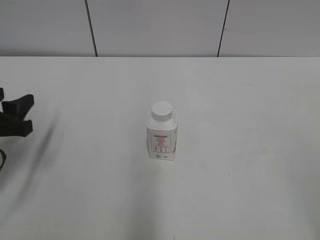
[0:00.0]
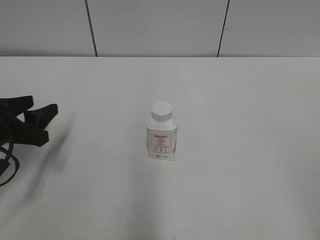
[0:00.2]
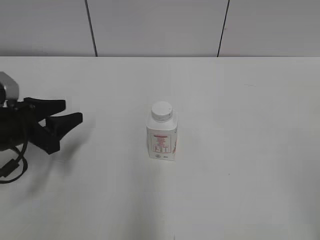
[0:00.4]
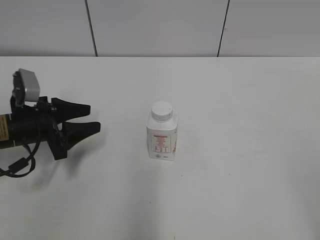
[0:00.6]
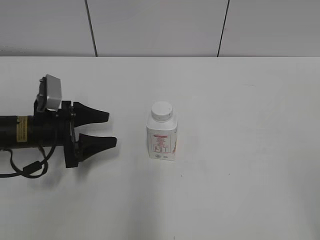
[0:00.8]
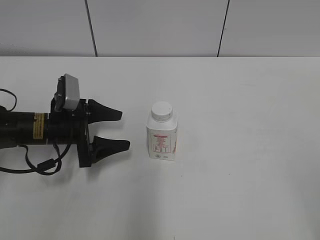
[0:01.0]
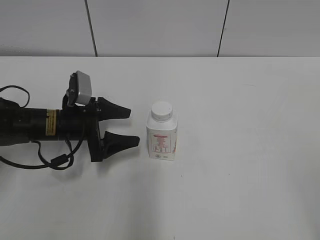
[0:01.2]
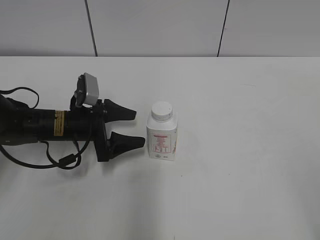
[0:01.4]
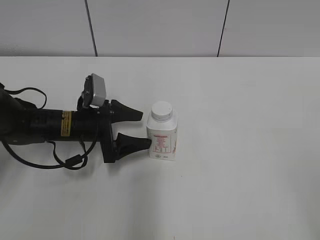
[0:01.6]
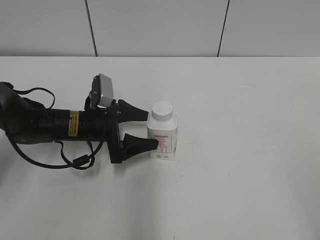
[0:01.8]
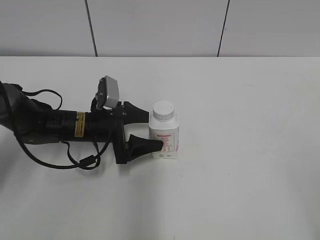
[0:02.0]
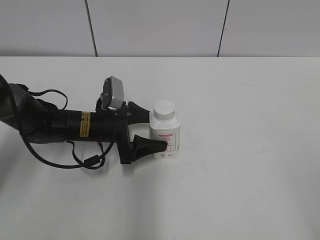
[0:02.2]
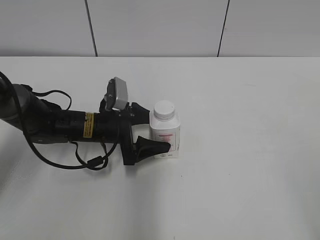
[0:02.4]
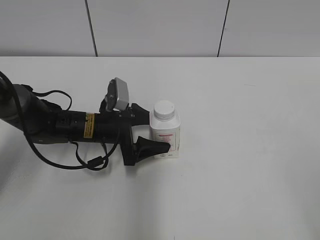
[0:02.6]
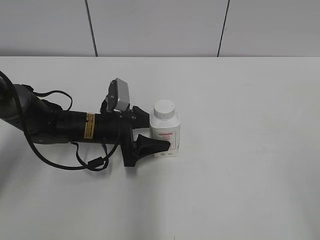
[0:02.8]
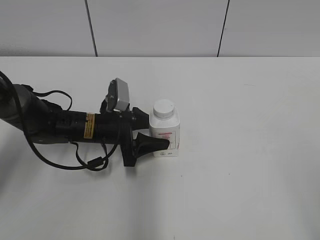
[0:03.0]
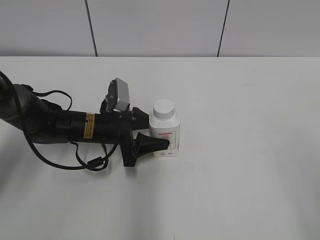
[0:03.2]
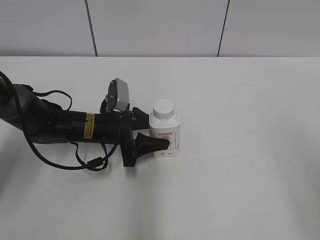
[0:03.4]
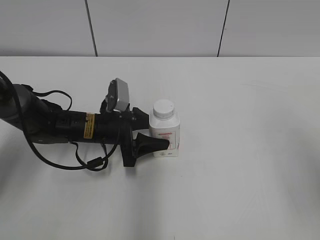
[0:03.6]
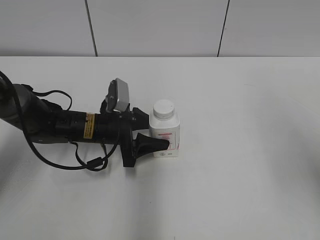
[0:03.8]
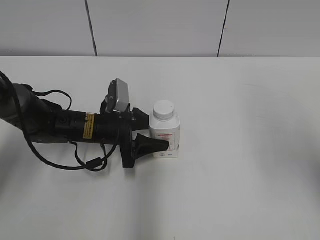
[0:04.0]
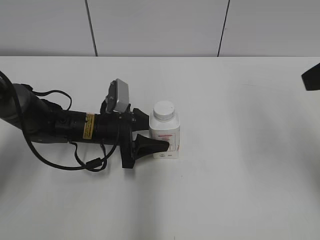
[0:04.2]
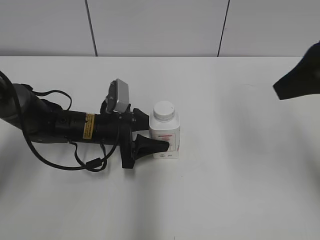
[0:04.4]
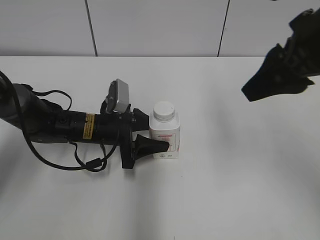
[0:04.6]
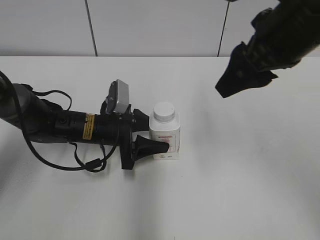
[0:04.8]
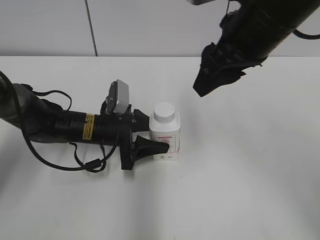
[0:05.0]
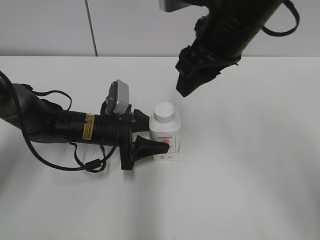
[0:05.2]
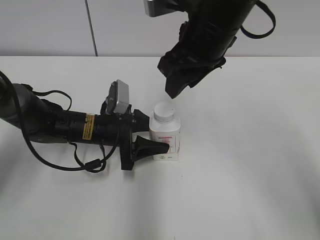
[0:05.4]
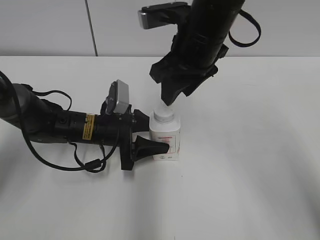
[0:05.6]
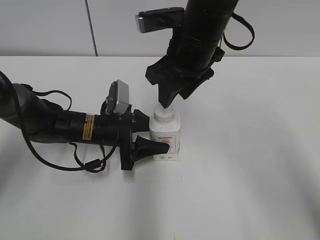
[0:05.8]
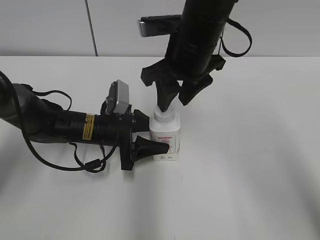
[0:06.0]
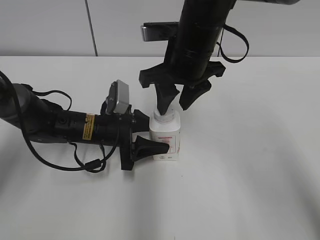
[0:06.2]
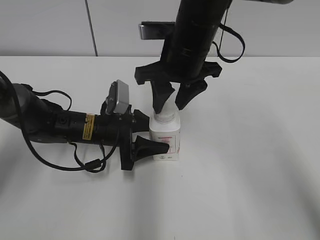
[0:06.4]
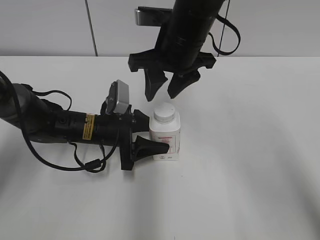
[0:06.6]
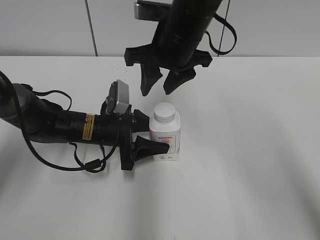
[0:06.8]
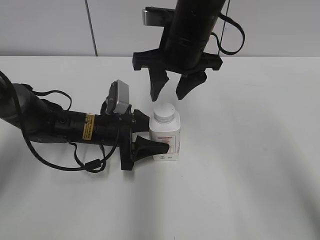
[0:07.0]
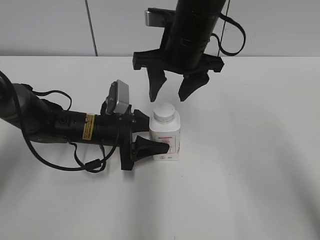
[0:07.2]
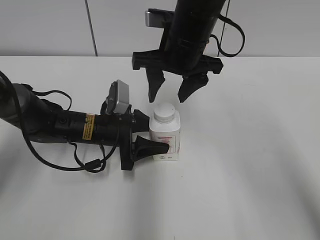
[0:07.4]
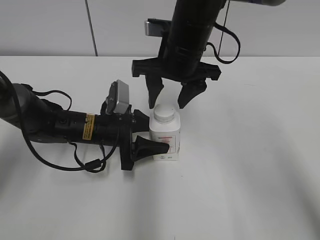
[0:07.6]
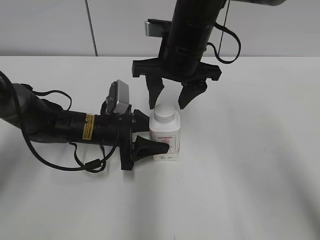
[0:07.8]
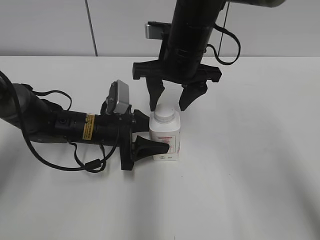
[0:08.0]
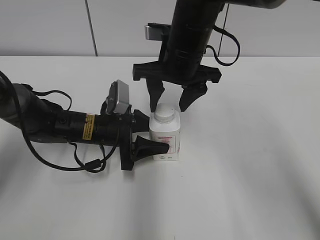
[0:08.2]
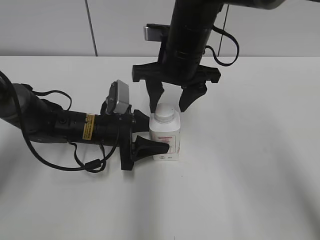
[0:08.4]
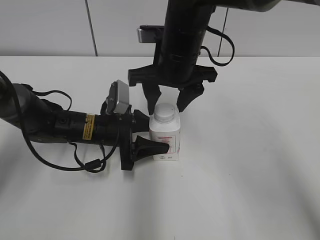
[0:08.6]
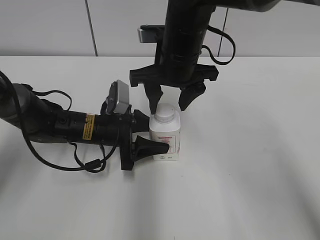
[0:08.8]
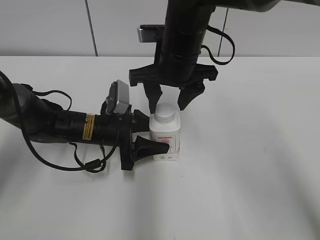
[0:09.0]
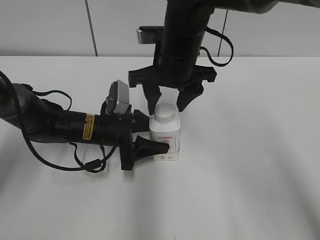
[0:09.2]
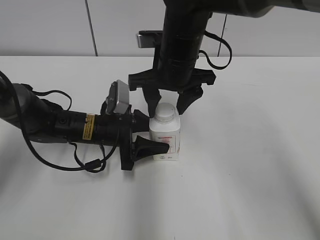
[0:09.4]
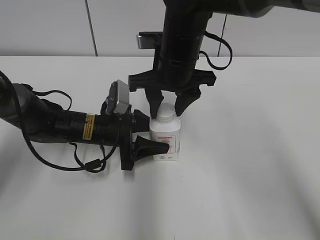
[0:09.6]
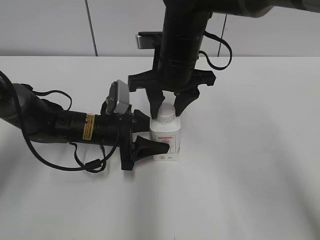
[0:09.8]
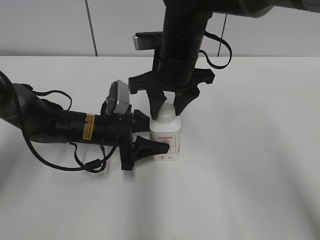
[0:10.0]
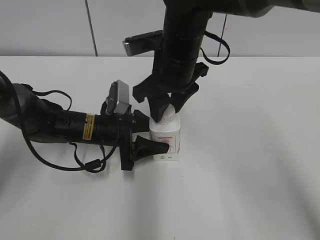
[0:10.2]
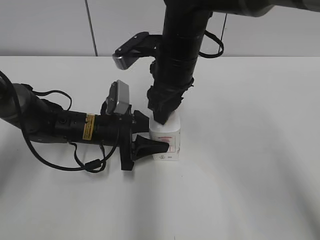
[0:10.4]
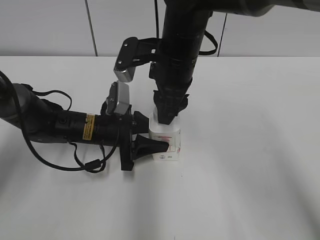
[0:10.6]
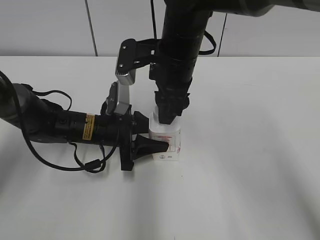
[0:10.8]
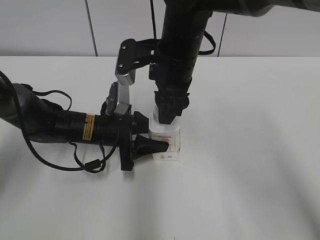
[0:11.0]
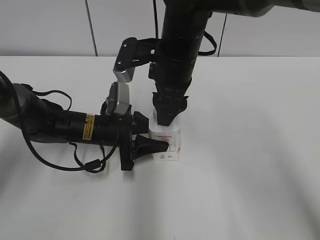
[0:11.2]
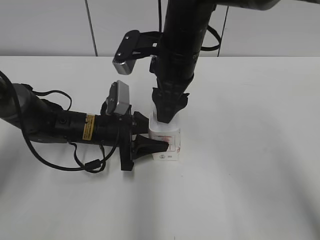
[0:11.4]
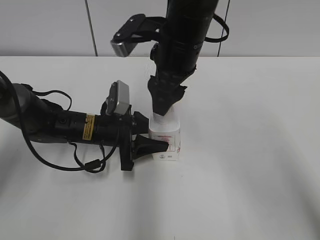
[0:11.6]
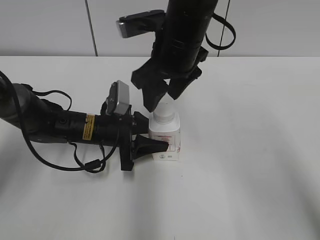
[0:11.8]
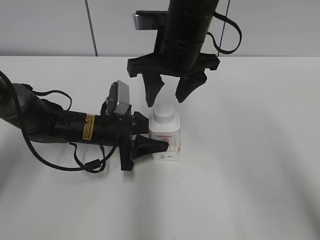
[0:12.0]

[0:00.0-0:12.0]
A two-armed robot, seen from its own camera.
Step, 0:00.0 to 0:04.6: Grasp the bottle and move it to the center of the table with the left gripper.
0:00.0 to 0:01.6: The left gripper is displaced to the right, forward and downward by some 20 cm, and opens up.
0:01.6 to 0:03.0: The left gripper closes.
0:03.0 to 0:04.4: The right gripper goes some 25 cm forward, and closes.
0:04.4 to 0:06.0: The right gripper goes about 20 cm to the left, forward and downward.
0:06.0 to 0:07.6: The right gripper opens its fingers.
0:07.6 to 0:09.0: The grippers stay close to where they were, moving slightly.
0:09.0 to 0:10.4: The right gripper closes.
0:10.4 to 0:12.0: The right gripper opens its fingers.

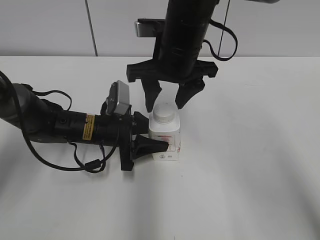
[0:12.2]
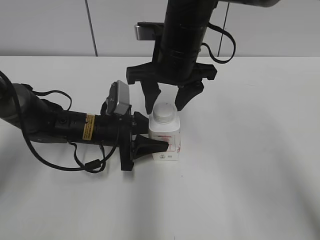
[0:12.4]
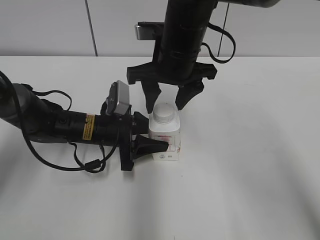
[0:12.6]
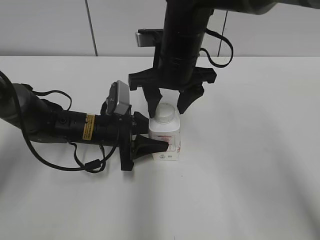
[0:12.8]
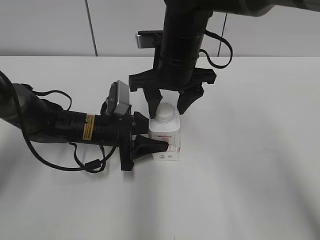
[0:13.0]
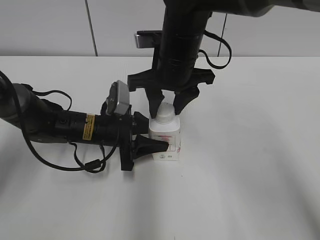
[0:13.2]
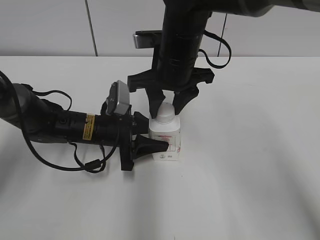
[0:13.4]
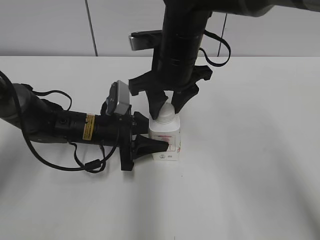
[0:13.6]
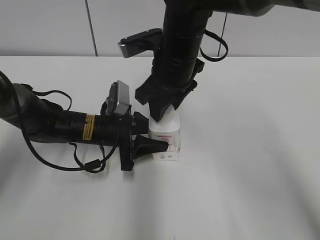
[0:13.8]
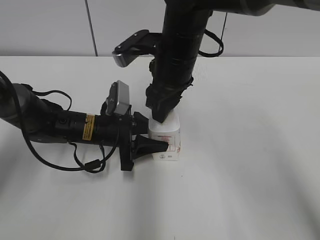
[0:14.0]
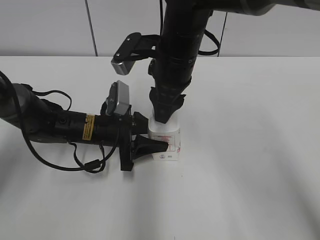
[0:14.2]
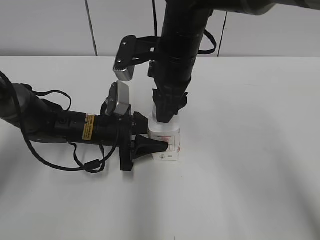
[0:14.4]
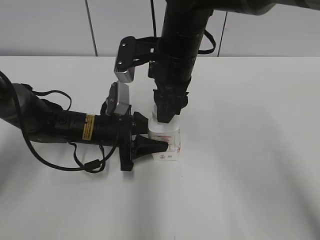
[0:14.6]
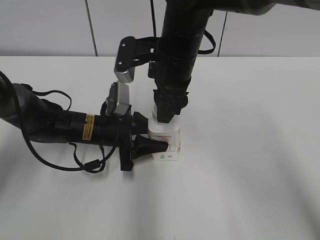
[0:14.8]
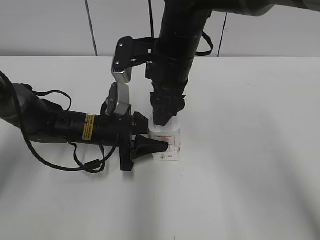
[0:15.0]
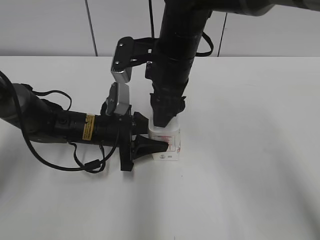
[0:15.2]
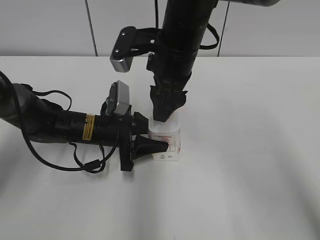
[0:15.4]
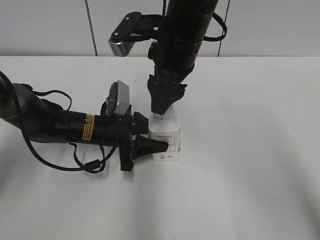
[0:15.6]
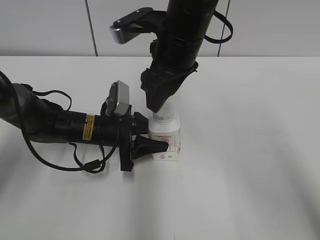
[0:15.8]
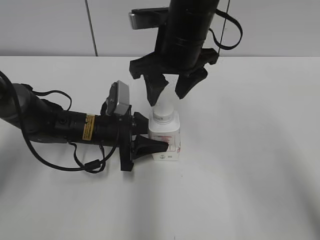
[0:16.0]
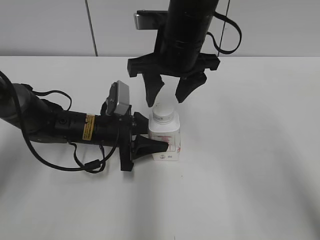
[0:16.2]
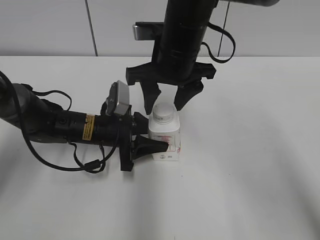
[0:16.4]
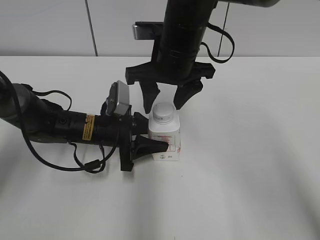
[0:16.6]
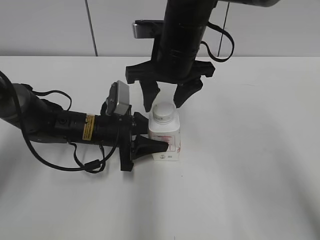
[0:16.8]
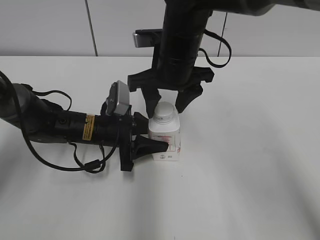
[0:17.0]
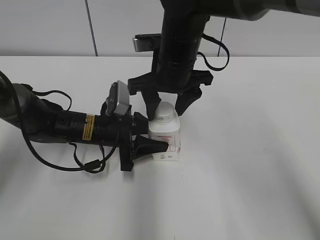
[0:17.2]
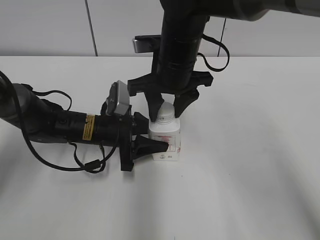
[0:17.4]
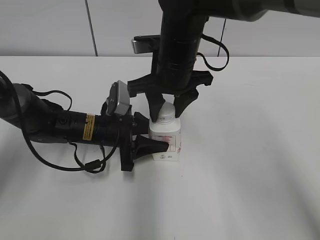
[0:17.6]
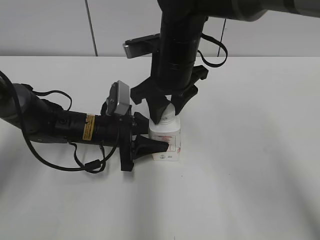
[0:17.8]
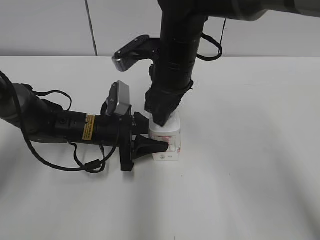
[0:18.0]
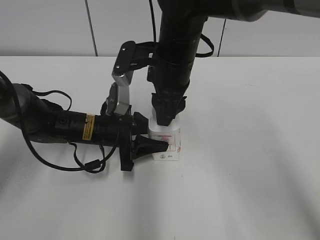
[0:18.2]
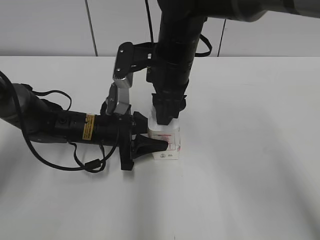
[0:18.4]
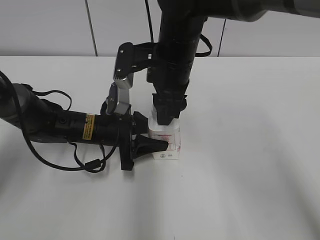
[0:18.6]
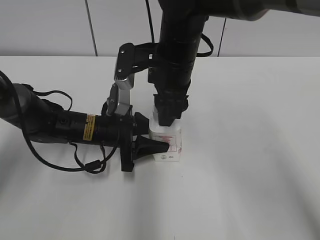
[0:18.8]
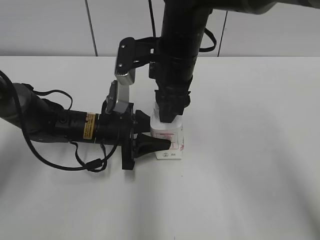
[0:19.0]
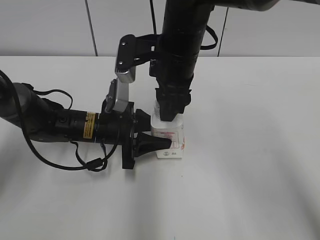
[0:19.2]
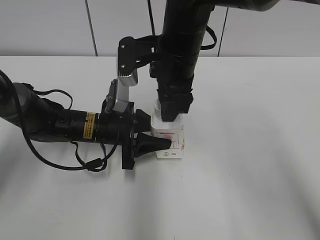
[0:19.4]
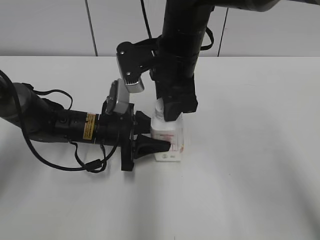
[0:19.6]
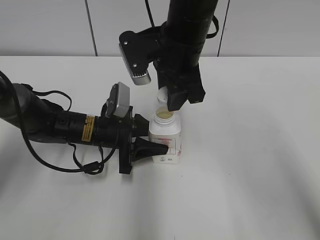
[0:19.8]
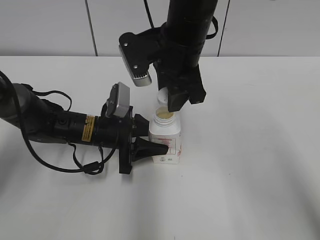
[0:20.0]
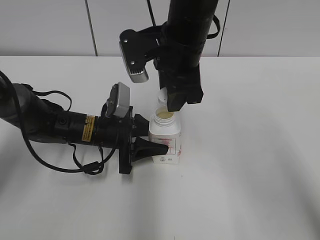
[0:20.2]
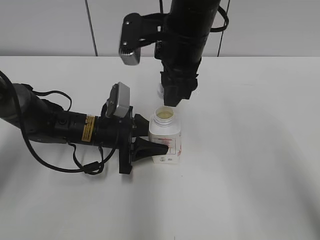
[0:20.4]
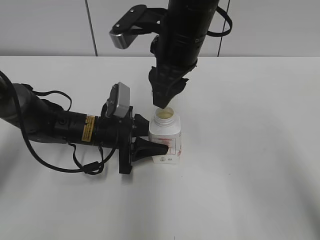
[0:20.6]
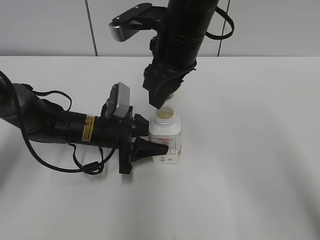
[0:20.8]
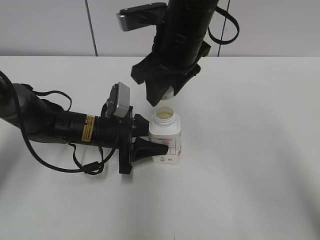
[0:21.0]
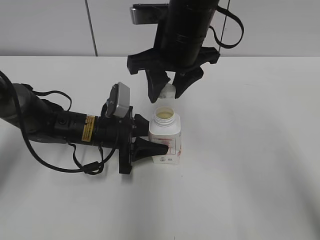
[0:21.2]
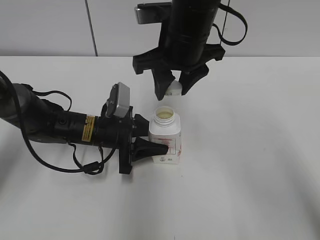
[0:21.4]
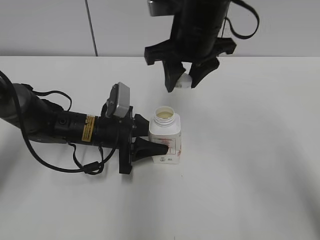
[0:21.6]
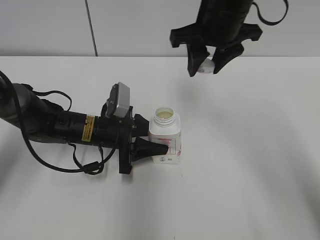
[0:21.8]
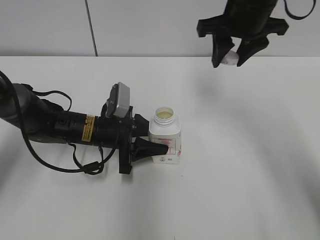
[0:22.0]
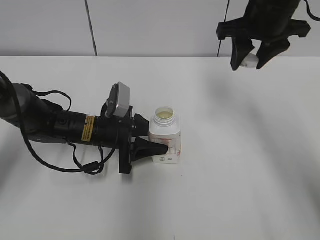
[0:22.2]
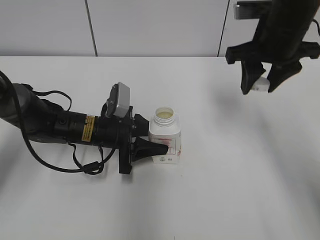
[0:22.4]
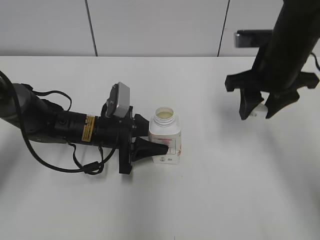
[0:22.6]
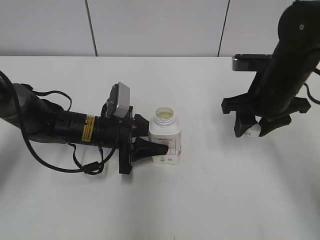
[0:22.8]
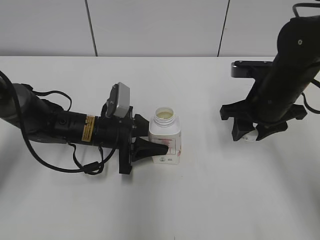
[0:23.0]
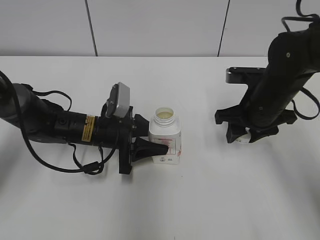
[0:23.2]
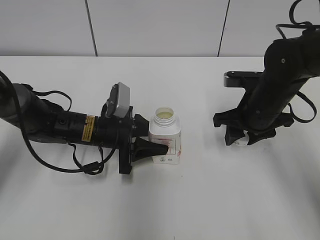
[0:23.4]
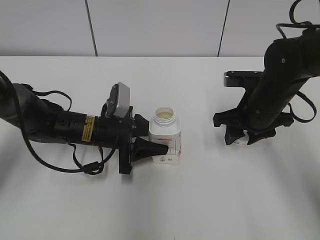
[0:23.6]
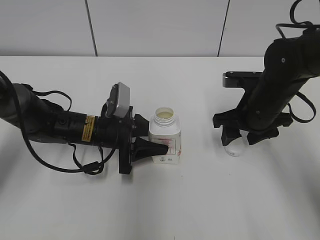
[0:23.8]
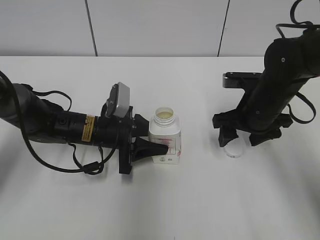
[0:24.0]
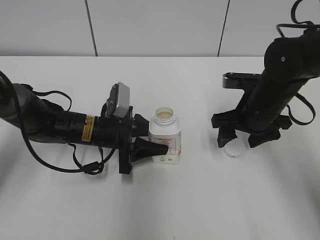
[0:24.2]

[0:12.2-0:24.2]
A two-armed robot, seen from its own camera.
Step, 0:12.2 to 0:20.0: Unscrew the bottle cap with the right gripper while holding the bottle with the left gripper.
0:12.2 to 0:13.8: The right gripper closes up.
0:13.8 to 0:15.2: The right gripper opens up.
0:16.6 to 0:18.2: The right gripper closes up.
0:21.2 to 0:22.6: The right gripper travels to the right by roughly 15 cm.
0:22.6 to 0:24.2: The right gripper goes roughly 10 cm downward, and opens its fingers.
